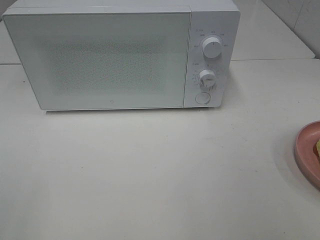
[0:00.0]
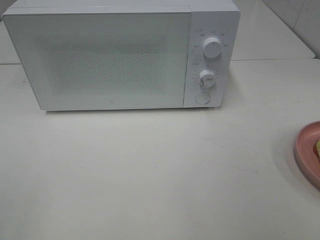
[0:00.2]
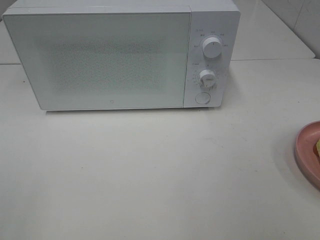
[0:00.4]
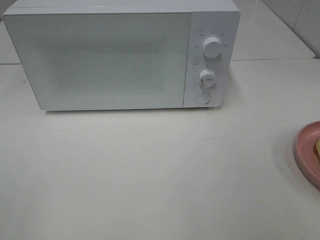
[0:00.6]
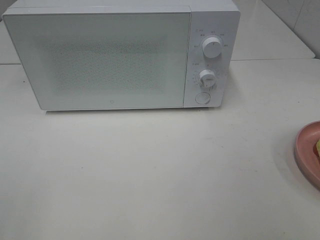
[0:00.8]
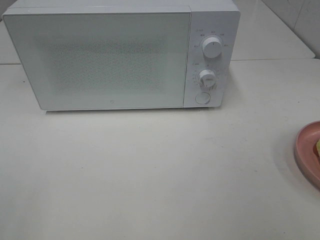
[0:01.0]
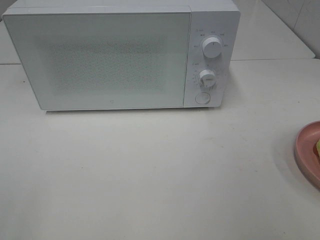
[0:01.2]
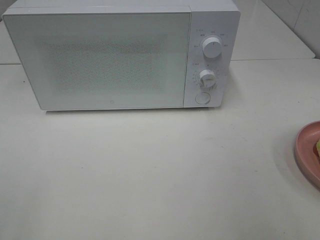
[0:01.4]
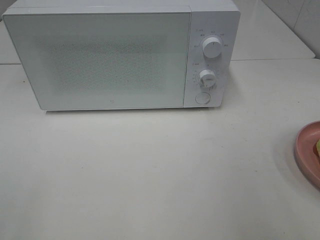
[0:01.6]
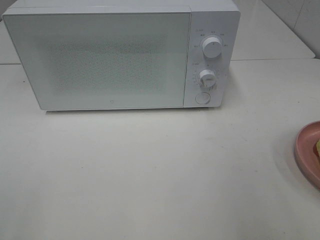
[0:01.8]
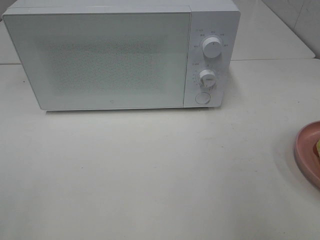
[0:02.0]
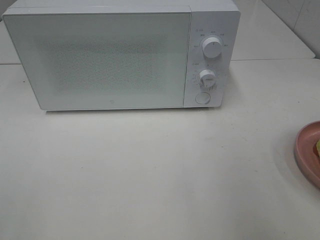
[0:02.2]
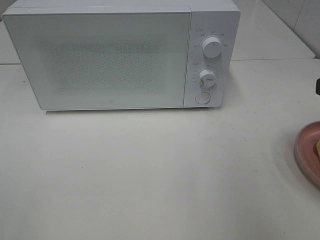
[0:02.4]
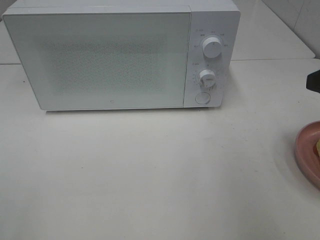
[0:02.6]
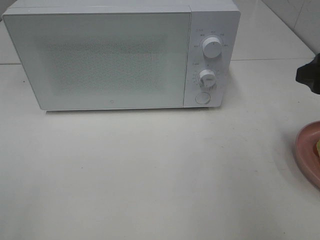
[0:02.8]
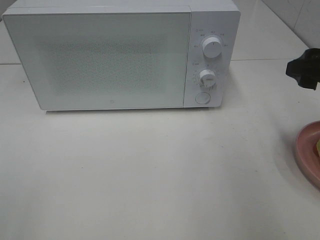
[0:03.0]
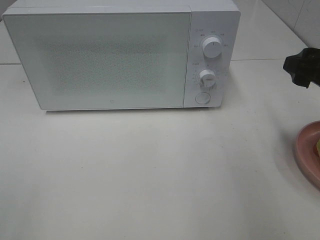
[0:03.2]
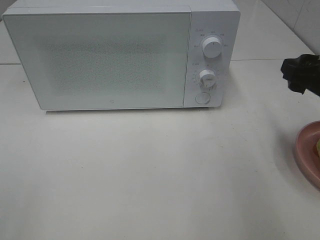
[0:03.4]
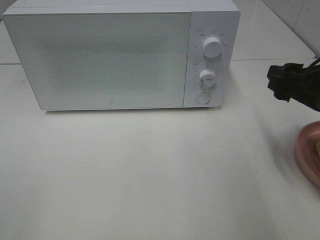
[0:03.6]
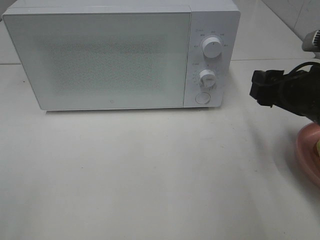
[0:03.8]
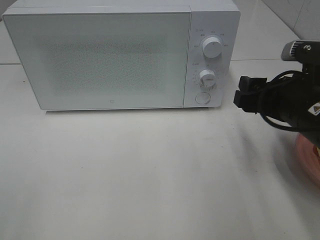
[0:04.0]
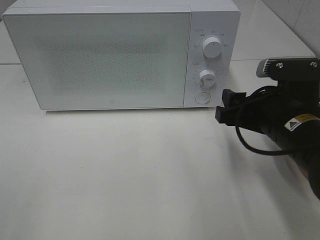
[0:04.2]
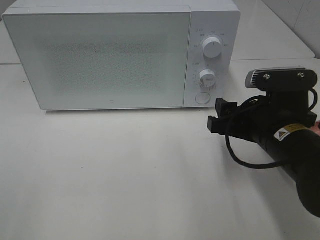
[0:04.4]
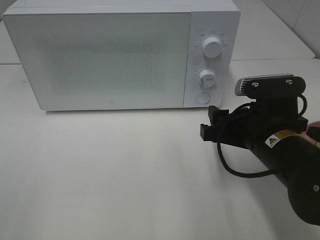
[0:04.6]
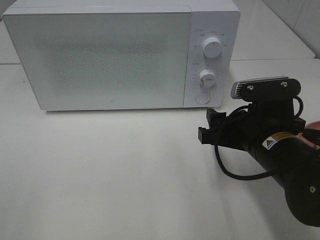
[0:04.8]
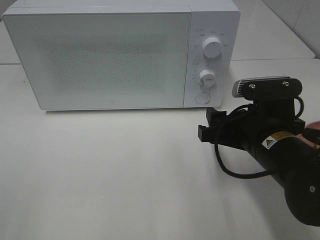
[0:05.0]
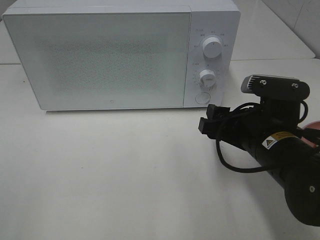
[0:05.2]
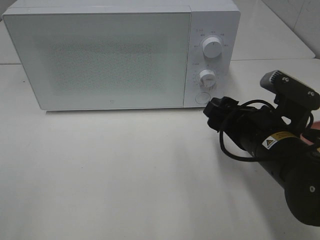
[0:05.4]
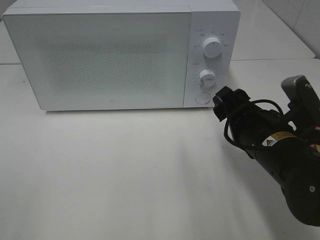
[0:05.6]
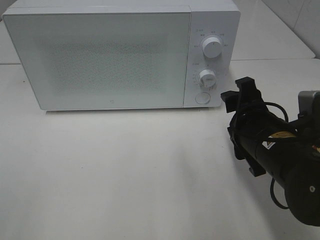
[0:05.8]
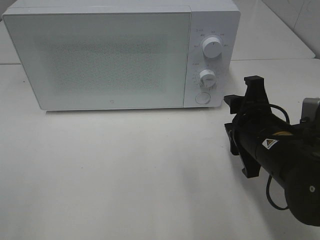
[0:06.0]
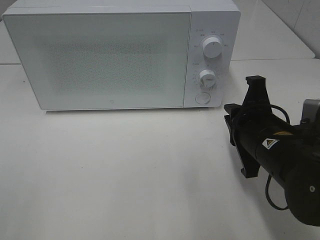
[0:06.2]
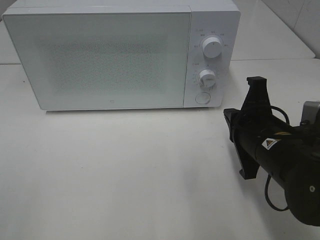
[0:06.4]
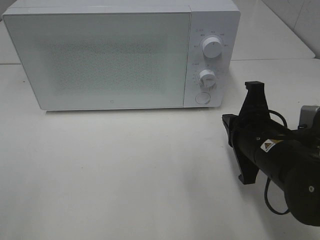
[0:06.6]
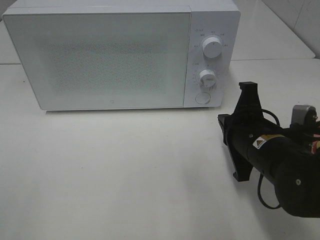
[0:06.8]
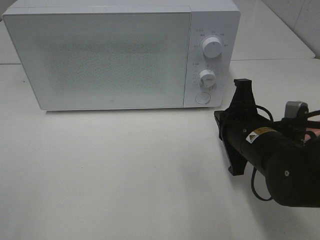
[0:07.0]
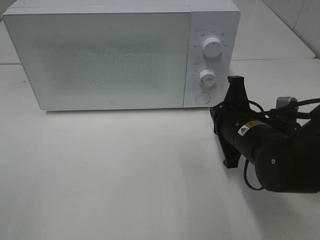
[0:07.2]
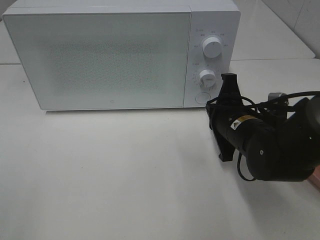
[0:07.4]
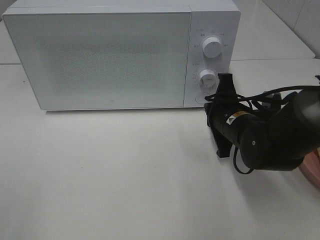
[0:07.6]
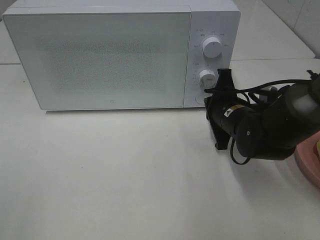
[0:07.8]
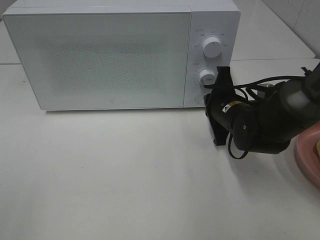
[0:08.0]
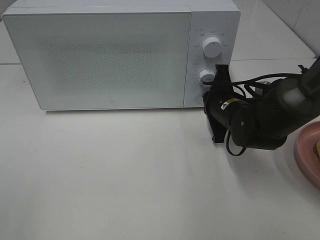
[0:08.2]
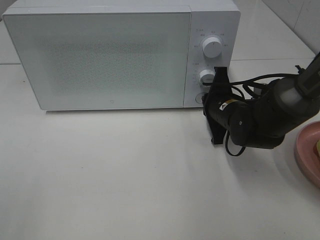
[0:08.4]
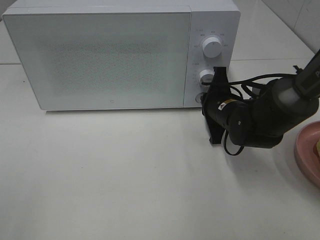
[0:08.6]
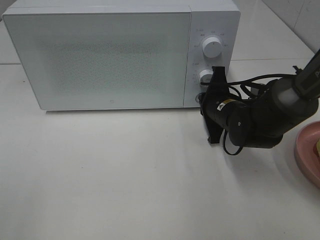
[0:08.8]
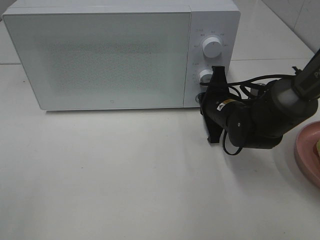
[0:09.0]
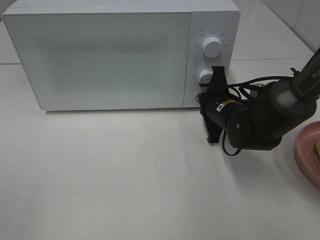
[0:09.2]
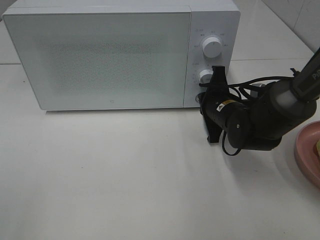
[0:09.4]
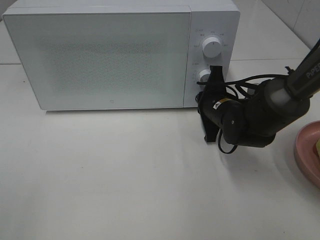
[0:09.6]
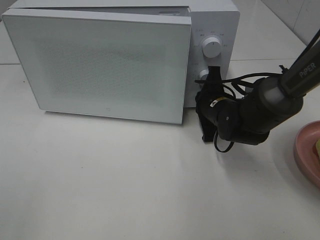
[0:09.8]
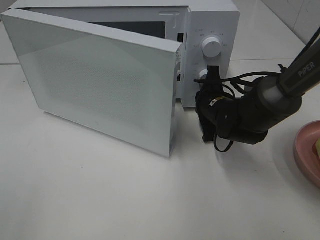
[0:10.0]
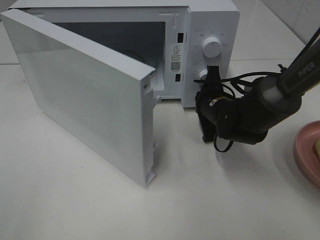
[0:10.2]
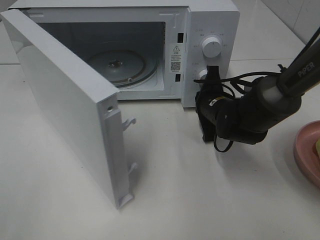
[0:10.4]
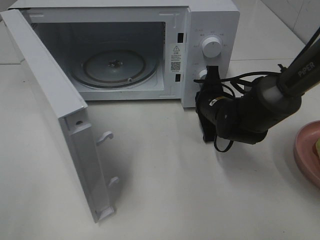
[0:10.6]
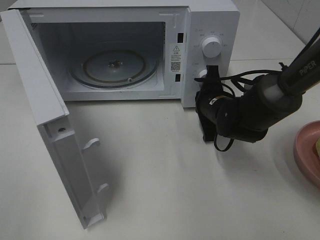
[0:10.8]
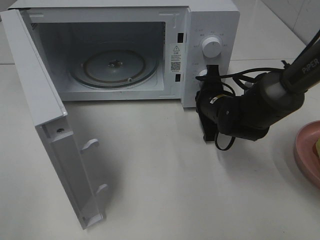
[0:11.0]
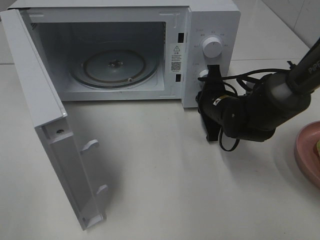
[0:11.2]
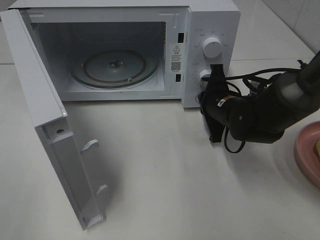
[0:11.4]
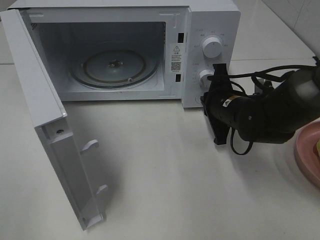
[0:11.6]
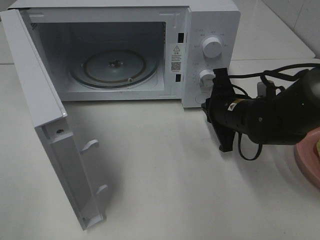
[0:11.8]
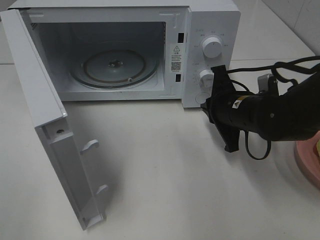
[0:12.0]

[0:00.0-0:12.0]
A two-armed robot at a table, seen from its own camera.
Task of the whole recording: Heat Sandwich.
Step, 0:00.0 to 0:11.8: Right hand: press the switch.
0:01.6 to 0:03.0: The right gripper shifts about 15 cm forward.
0:03.0 to 0:04.4: The right gripper is displaced to the left and downward by roughly 15 cm.
0:06.0 to 0:07.6: The right gripper goes about 10 cm forward, and closes up.
0:07.6 to 0:09.0: The right gripper moves roughly 5 cm.
0:10.4 to 0:12.0: The right gripper travels backward by approximately 5 cm.

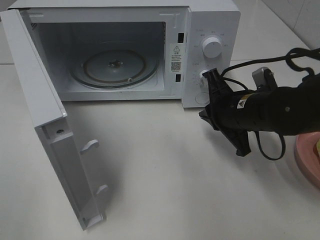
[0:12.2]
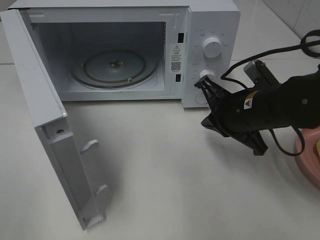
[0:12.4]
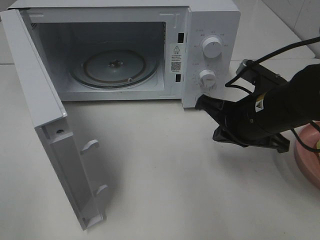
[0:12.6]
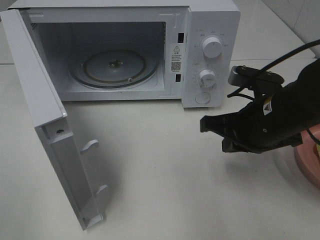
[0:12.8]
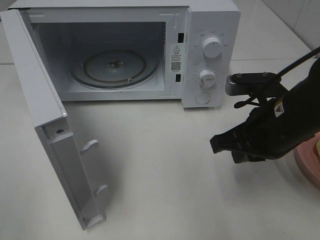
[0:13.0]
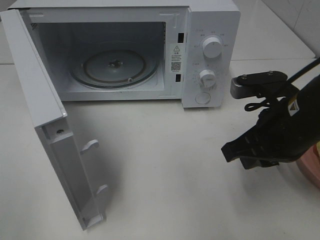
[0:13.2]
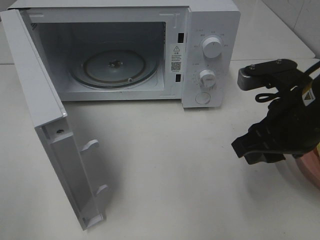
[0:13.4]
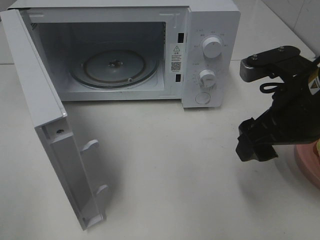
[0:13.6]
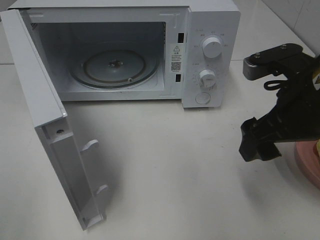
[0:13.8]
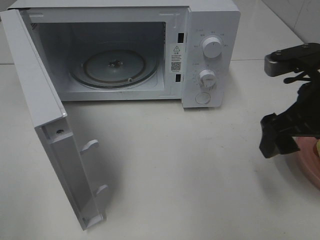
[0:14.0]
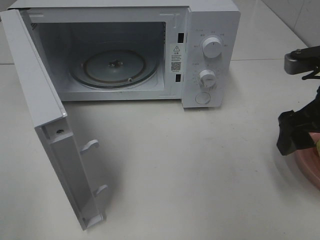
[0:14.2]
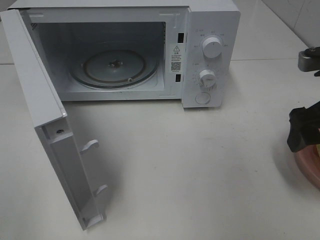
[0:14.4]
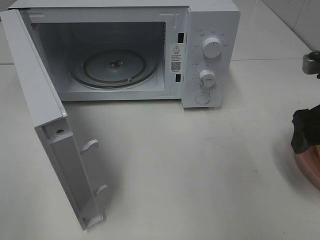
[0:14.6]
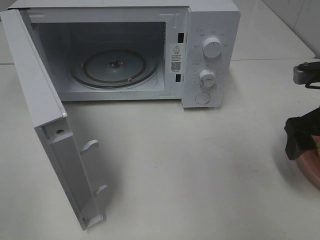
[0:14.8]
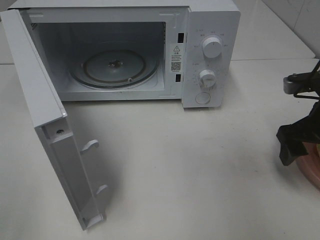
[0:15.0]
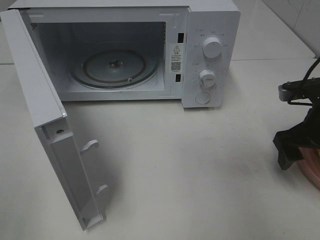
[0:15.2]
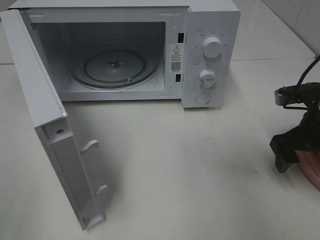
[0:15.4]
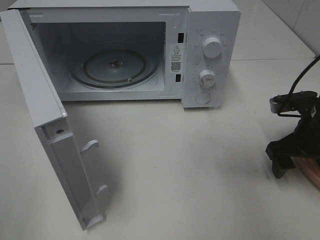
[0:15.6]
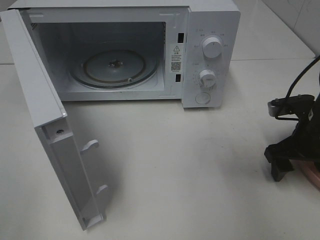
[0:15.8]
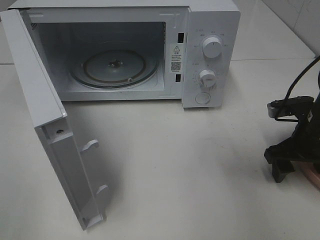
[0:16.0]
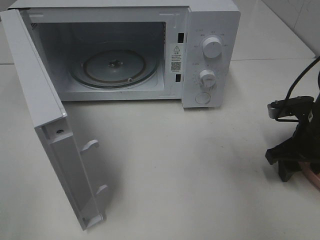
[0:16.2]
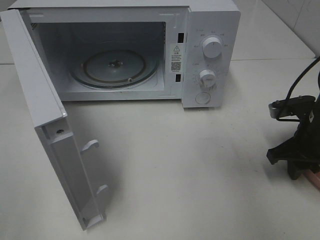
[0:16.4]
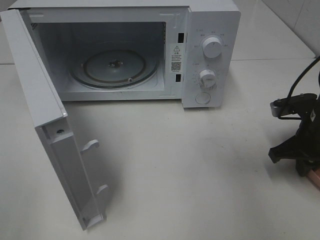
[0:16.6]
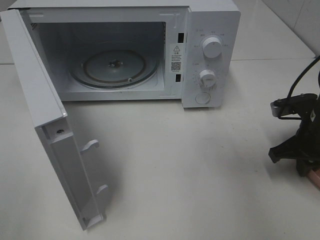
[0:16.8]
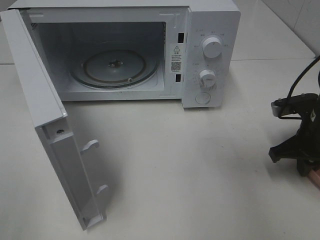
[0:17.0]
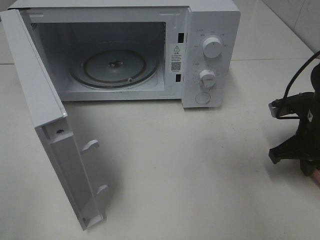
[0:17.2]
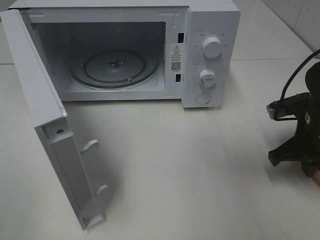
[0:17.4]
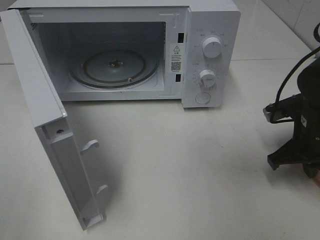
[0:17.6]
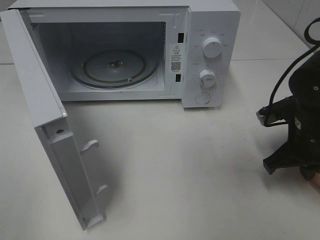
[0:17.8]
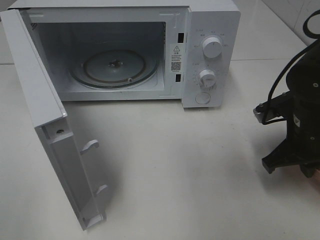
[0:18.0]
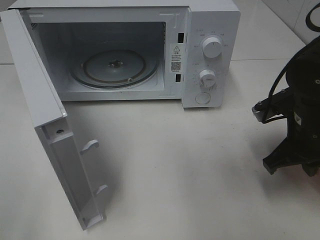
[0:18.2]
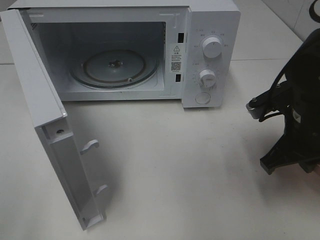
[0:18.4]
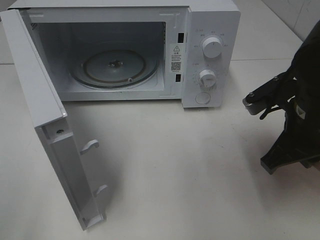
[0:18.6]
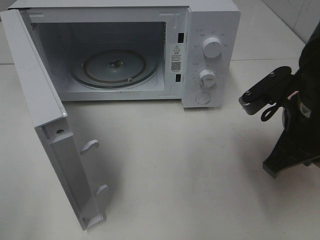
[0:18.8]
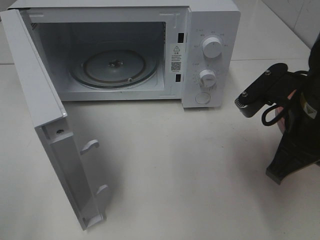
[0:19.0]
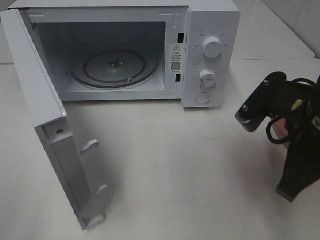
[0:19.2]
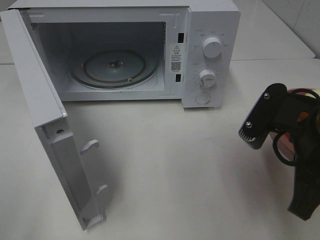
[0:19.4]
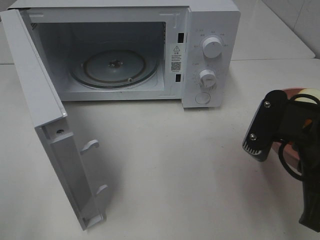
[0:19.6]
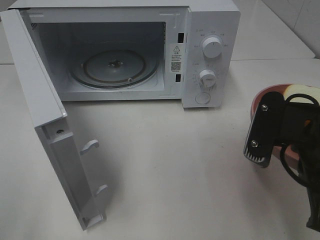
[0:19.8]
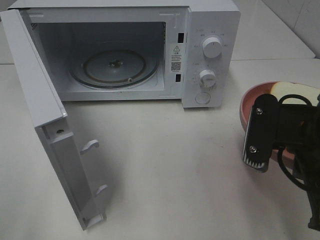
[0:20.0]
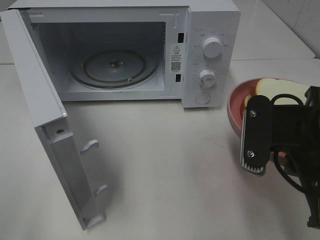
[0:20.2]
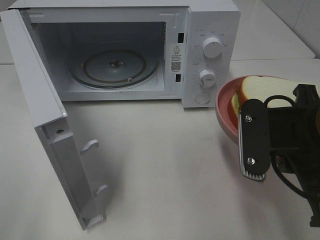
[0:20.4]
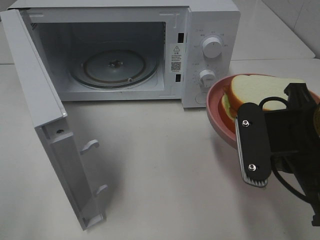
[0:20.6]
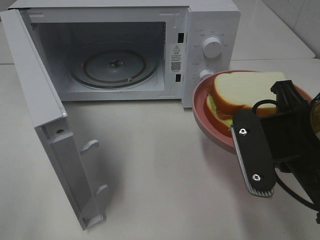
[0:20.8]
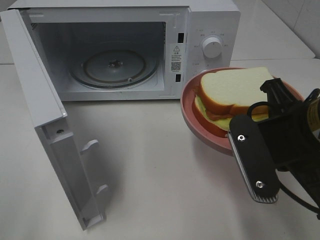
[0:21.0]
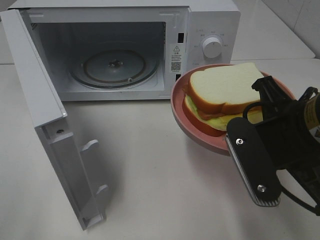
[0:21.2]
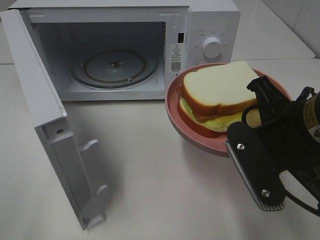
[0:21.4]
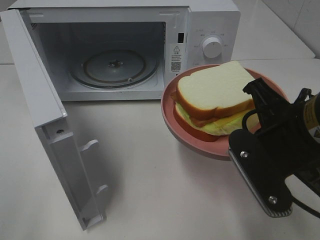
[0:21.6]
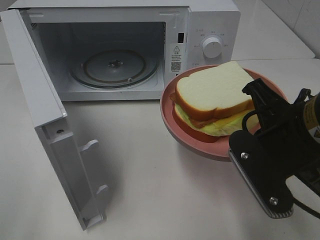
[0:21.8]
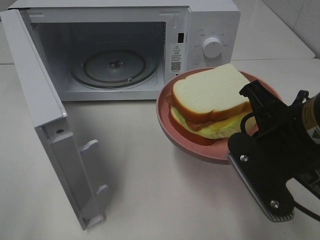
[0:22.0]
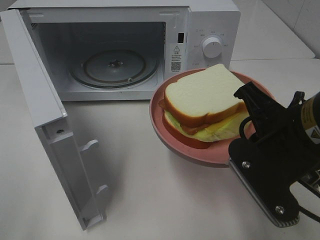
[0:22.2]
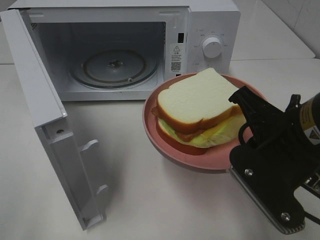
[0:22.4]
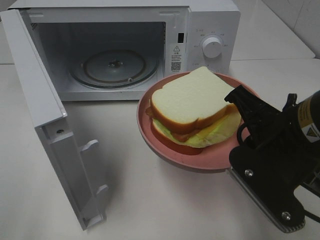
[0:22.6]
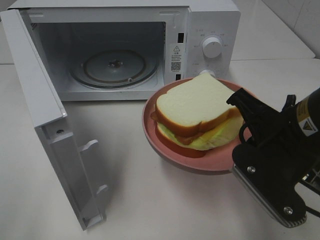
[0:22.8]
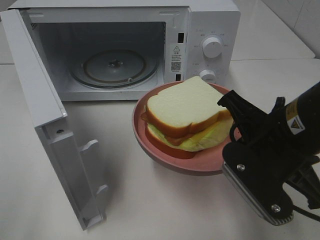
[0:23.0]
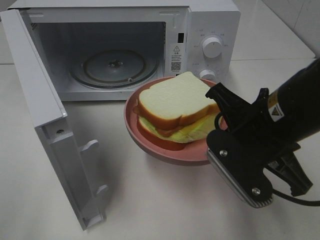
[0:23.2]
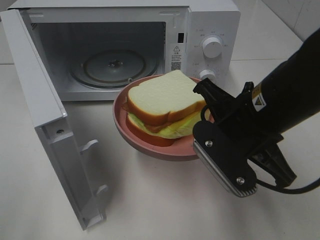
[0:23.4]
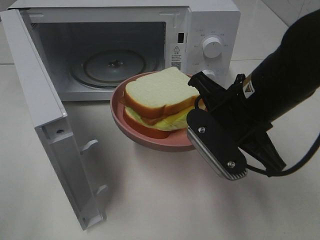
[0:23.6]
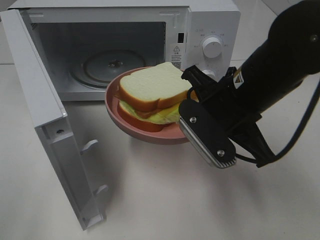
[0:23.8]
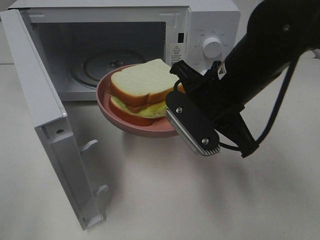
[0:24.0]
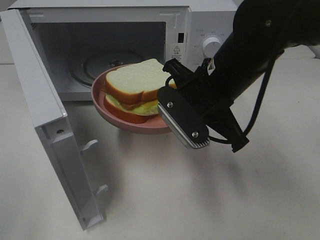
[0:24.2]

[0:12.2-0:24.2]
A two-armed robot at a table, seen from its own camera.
Task of the whole recording: Heat Sandwich.
Step, 0:12.2 to 0:18.2: Right hand: grab the plate with the sandwich.
0:12.2 to 0:13.8: The right gripper travels upward and backward by roughly 10 cm, and opens its fingers.
0:13.8 to 0:15.2: The right gripper is displaced to the right, downward and forward by about 10 cm.
0:15.2 to 0:16.6: The right gripper closes.
0:16.6 to 0:18.2: The right gripper heads to the left, covering roughly 5 cm.
0:18.2 to 0:19.8: The right gripper moves backward and upward, approximately 10 cm.
0:22.6 to 0:24.2: The right gripper is displaced forward and to the left by roughly 10 cm.
